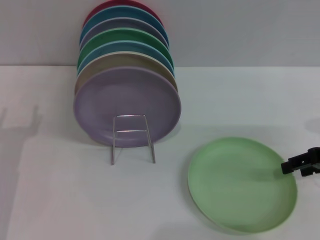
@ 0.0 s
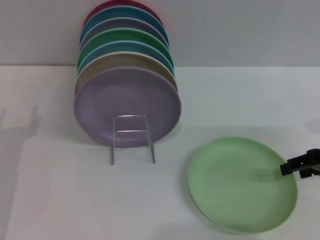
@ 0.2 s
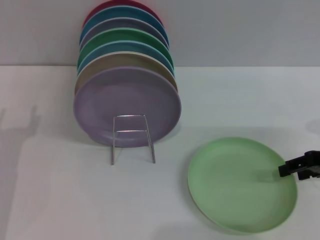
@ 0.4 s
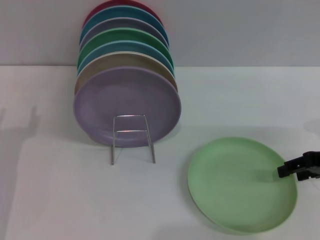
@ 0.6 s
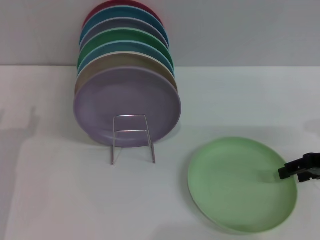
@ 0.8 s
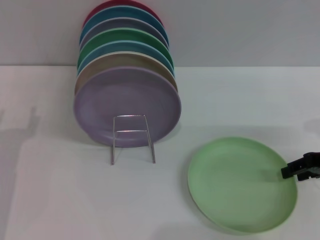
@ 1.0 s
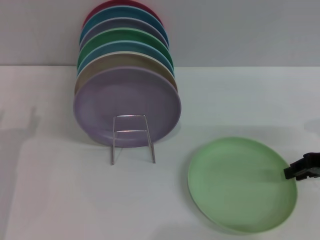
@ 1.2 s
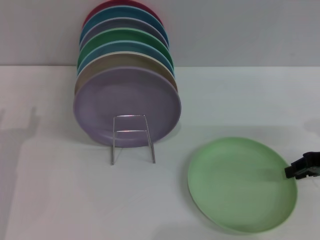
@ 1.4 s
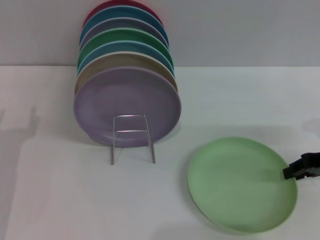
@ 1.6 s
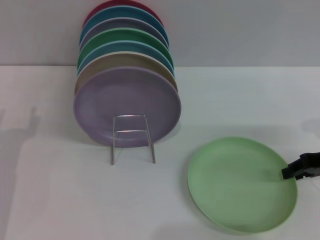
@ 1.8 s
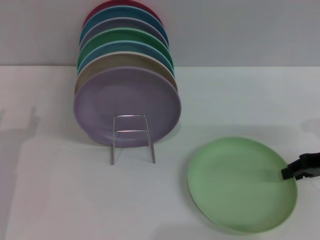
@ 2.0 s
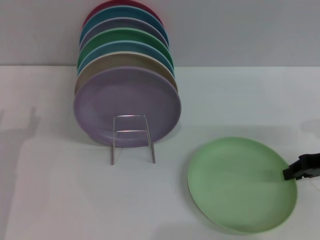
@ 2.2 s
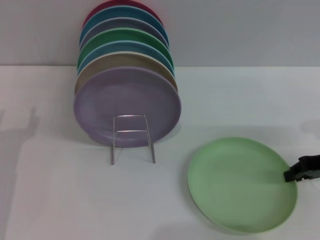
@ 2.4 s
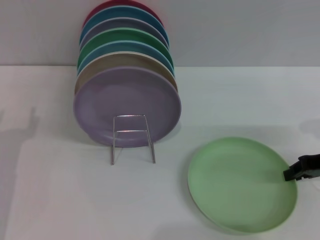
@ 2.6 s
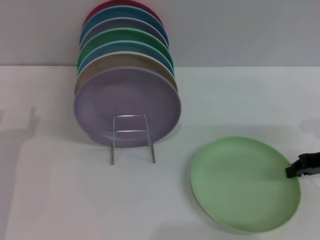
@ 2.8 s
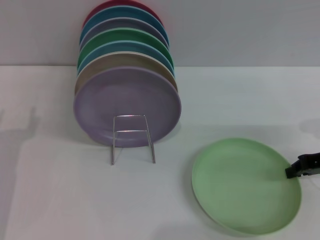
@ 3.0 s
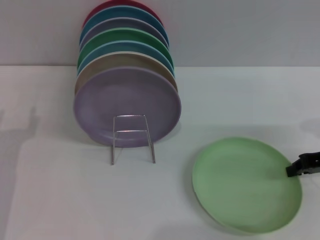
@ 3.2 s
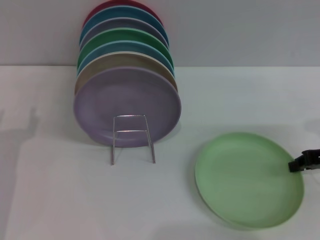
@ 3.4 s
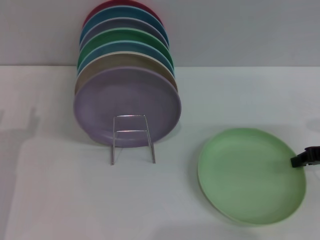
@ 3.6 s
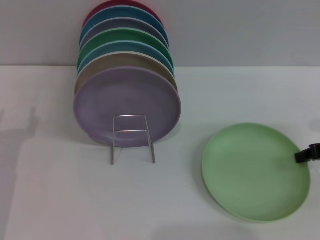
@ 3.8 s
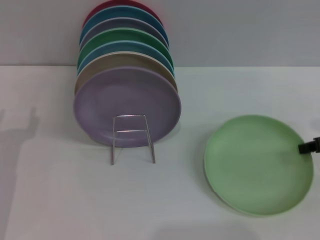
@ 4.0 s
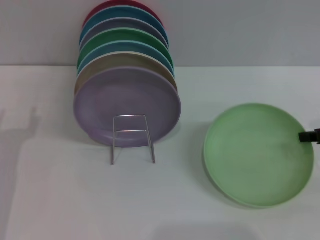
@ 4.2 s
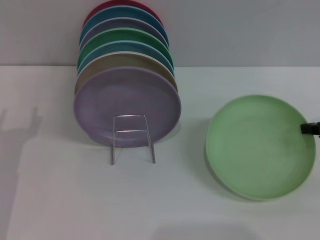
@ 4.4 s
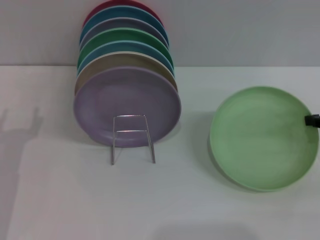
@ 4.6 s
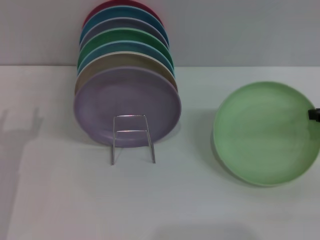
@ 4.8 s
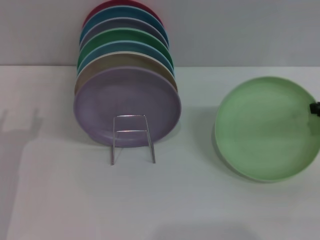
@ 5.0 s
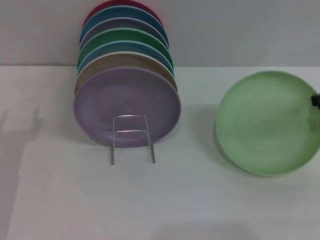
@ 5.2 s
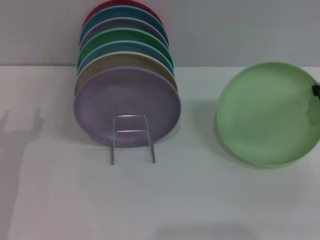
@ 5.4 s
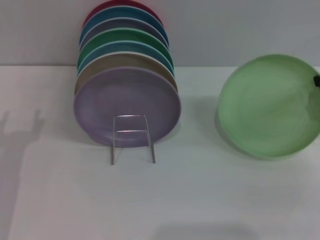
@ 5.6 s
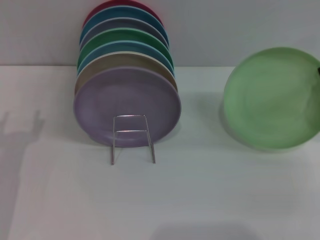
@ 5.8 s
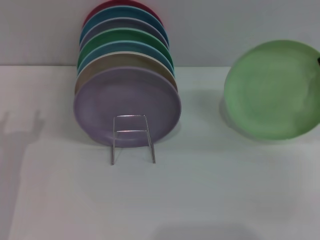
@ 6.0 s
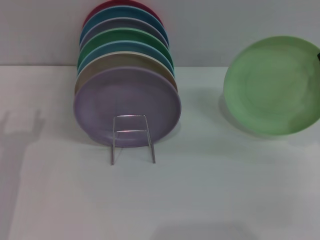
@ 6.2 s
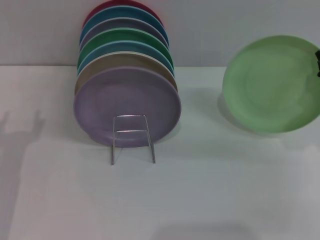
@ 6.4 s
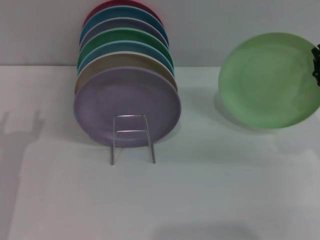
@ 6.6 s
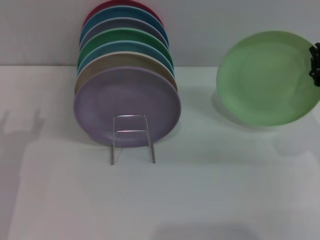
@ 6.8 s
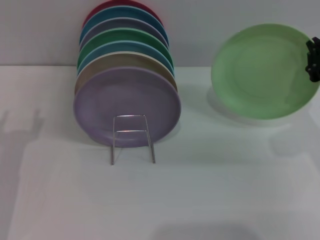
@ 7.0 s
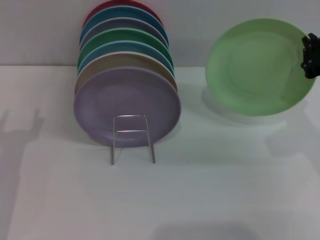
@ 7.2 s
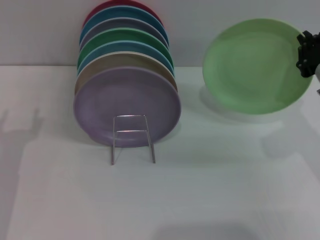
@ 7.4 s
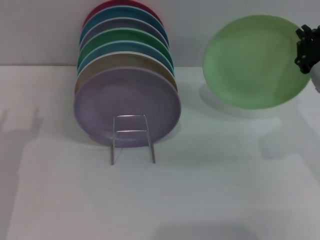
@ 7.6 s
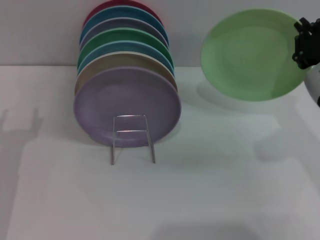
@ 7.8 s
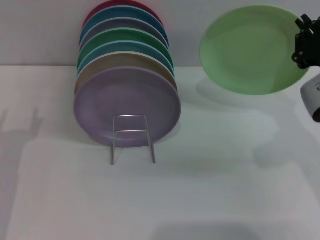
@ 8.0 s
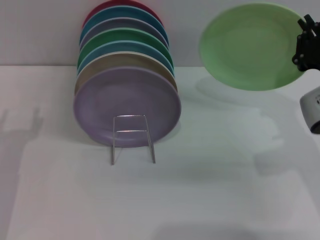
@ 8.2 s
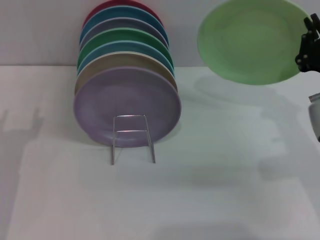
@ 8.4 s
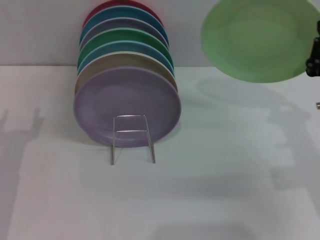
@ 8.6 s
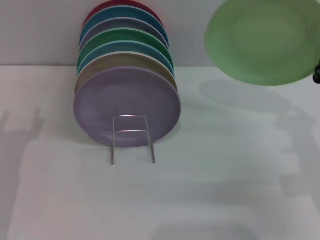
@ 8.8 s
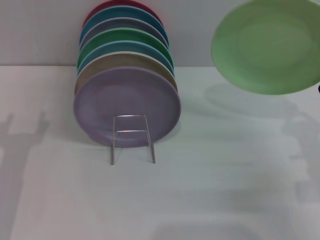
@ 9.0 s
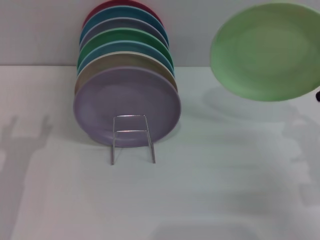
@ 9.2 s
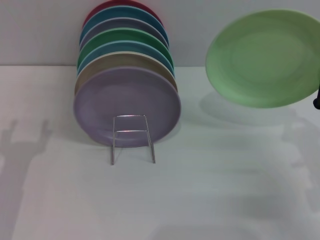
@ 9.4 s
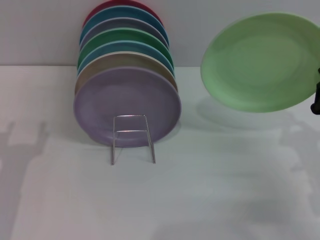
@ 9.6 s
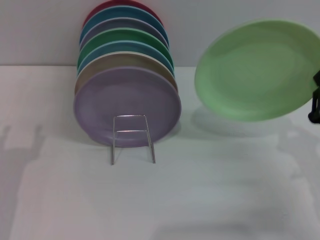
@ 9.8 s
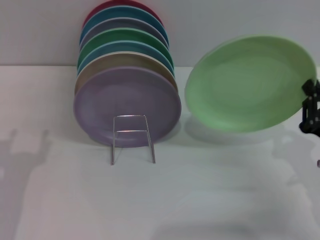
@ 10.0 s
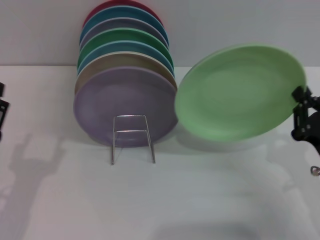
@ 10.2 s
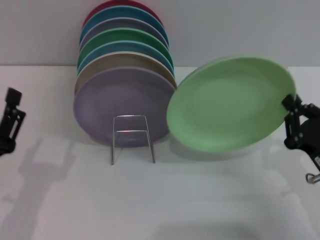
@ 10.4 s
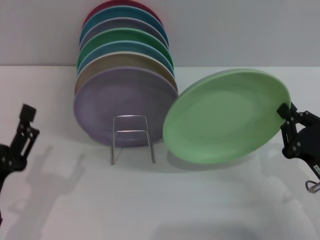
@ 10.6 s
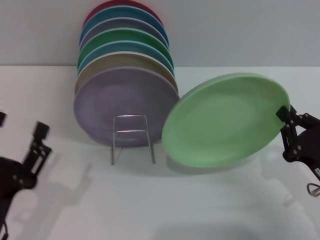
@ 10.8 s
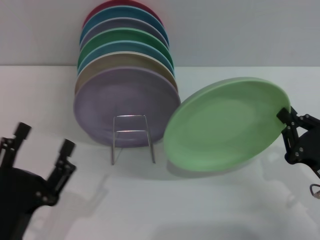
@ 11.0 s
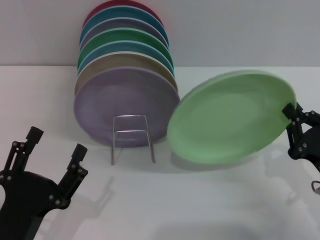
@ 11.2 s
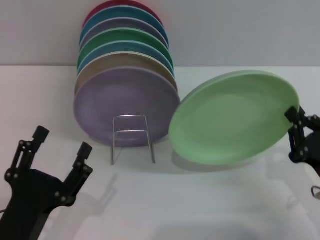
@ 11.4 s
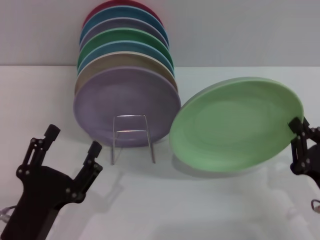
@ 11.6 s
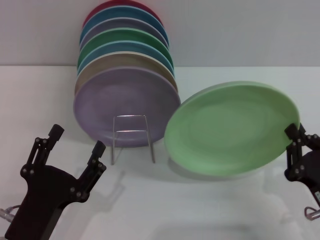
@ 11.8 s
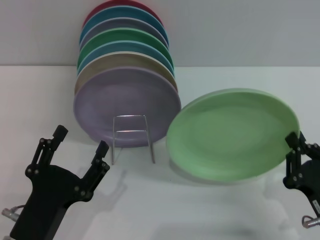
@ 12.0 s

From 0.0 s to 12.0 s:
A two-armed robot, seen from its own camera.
Task of the whole recording: Grip the plate with one hand, pass it to the other, then set it on the shelf.
Step, from 0.0 s to 4.2 s: Pick up the plate with the right gripper.
From 0.0 s to 1.6 s: The right gripper closes its fingers.
From 1.6 s to 3.0 s: The right gripper closes its fingers.
From 4.4 s to 6.0 s: The right gripper shifts by some 5 cm.
From 6.0 s to 7.6 s: The right gripper heads to the left, covering some 5 cm.
From 7.6 s to 9.0 s: The right gripper moves downward and backward, about 10 cm.
From 9.0 s to 10.4 s: The left gripper is displaced backward by roughly 5 cm; the right gripper ends up some 5 cm from where it was.
From 10.4 s to 12.0 s: The right gripper shifts about 5 cm backward. The left gripper moves to the right, roughly 5 cm.

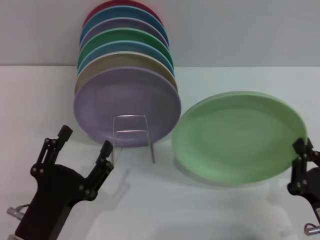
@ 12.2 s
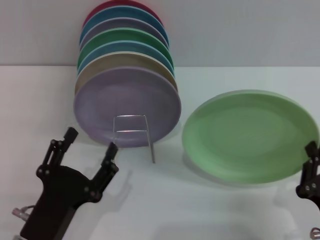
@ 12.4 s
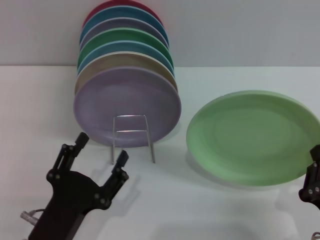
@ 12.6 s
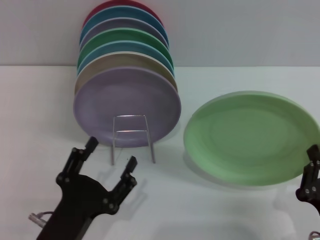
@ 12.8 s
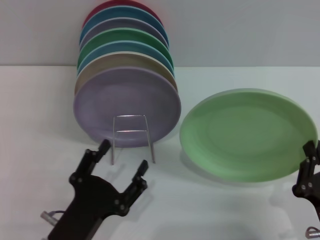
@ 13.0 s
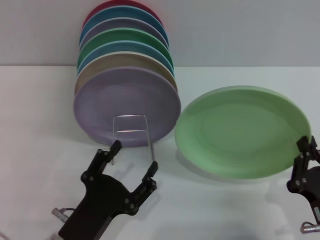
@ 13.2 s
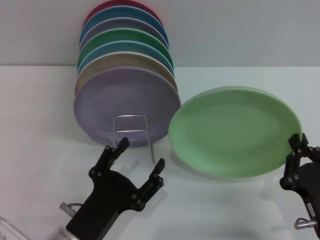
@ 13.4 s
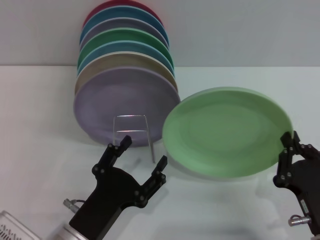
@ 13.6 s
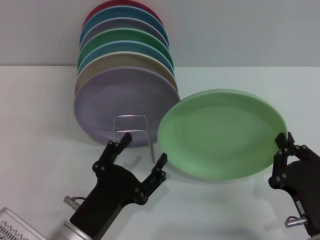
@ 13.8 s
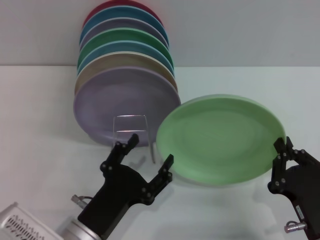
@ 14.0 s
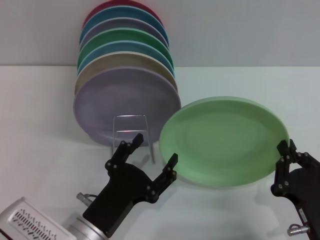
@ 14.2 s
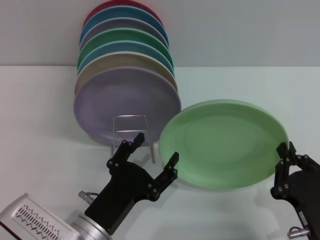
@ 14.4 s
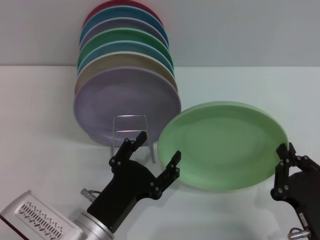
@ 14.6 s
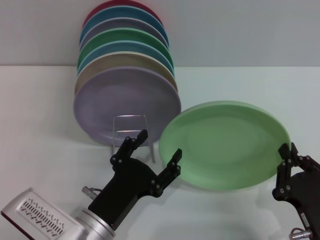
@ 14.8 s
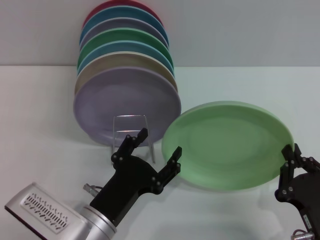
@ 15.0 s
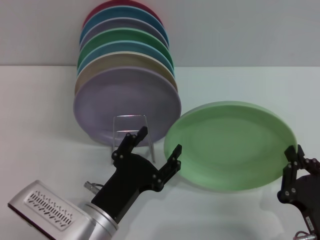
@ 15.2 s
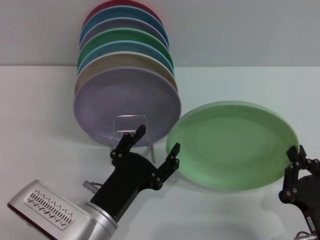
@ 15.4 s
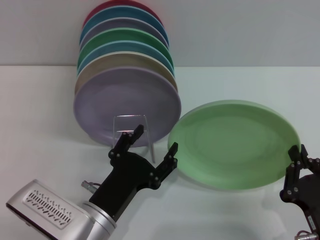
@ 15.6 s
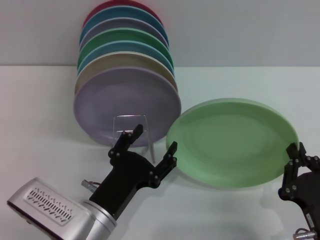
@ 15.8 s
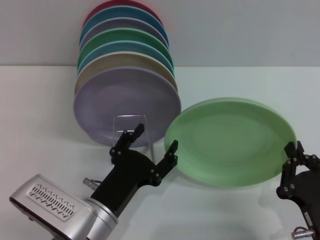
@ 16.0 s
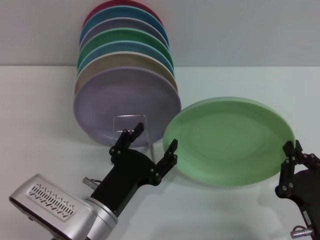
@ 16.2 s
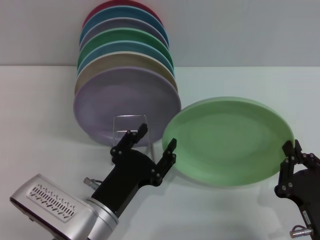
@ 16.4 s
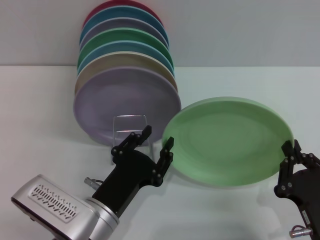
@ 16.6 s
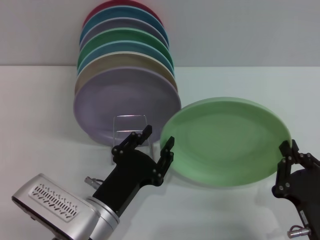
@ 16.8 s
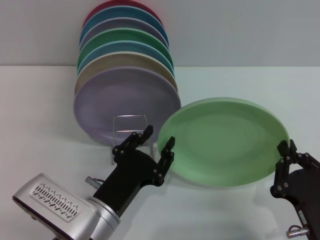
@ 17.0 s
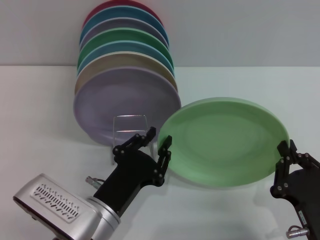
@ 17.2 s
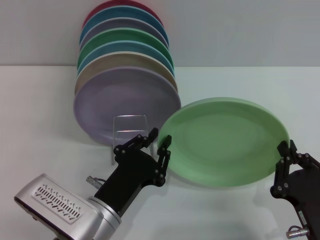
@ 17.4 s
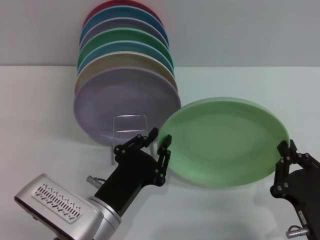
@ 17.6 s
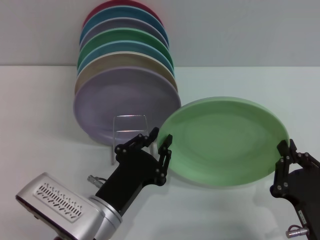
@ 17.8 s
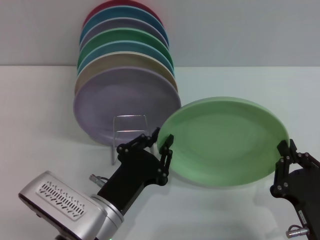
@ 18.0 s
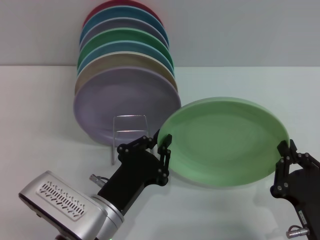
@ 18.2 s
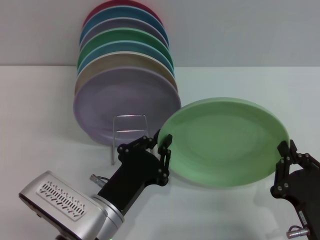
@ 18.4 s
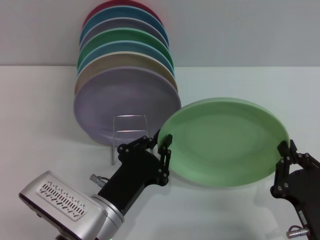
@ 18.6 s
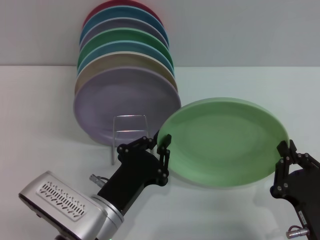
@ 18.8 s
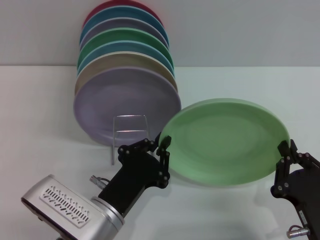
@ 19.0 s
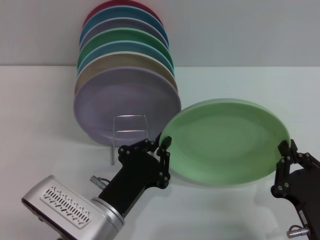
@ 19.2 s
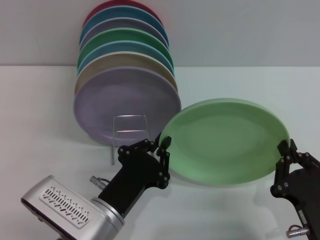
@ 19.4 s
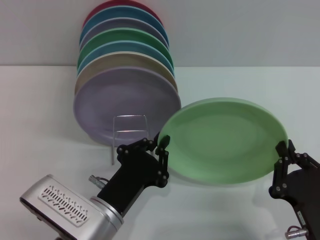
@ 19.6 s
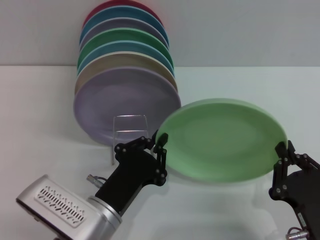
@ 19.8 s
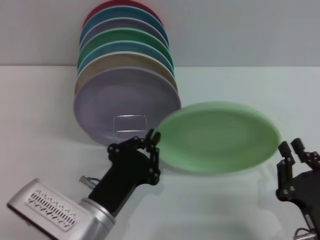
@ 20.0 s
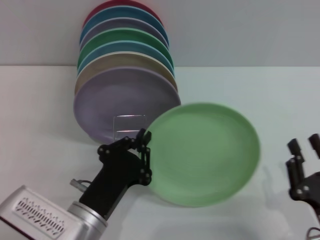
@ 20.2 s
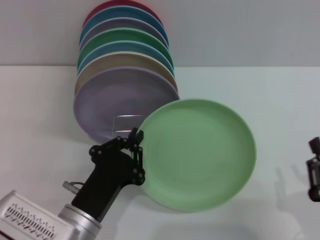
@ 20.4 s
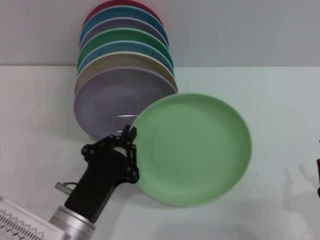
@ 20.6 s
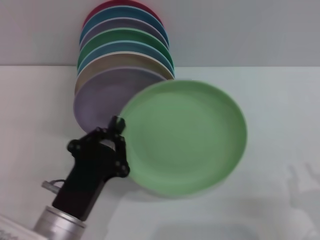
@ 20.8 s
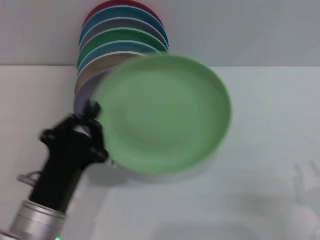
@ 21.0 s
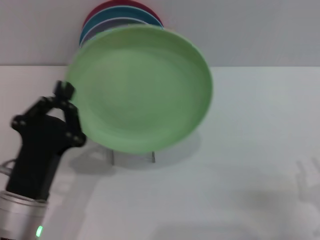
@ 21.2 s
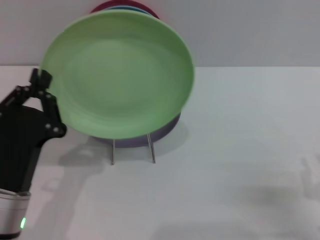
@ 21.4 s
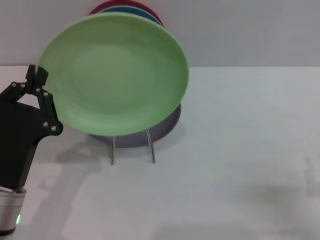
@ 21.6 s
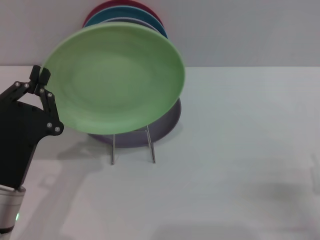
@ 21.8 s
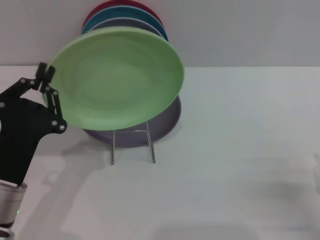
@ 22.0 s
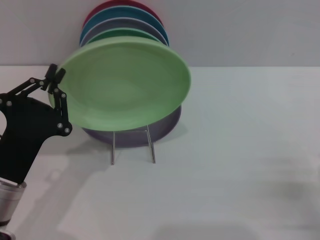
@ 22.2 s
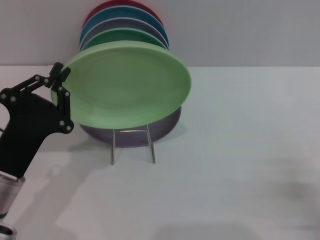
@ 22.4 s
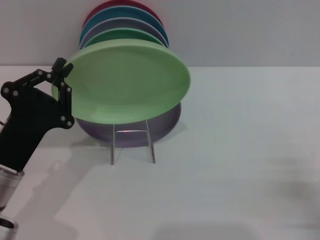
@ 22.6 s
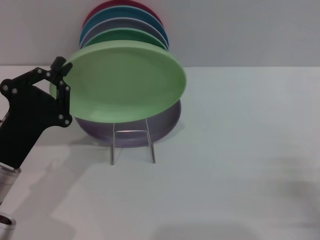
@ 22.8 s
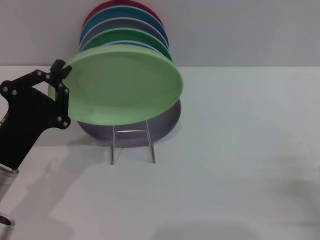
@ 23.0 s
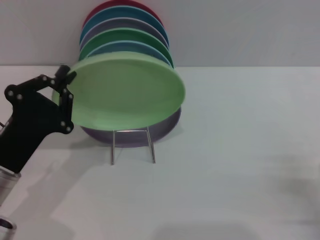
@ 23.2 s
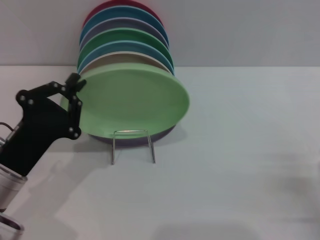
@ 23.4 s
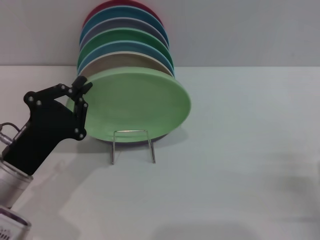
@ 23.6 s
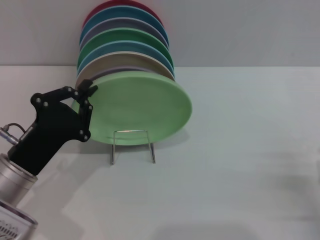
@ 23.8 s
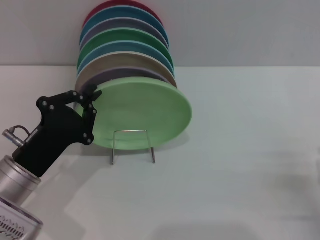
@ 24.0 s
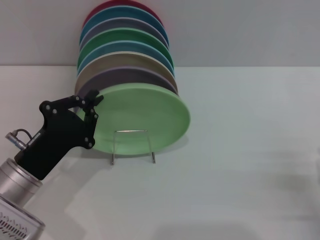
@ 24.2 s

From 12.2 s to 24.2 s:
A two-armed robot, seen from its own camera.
Task of the whole recording: Grip the plate with one hand, pass it to the other, then set it on the shelf.
Step, from 12.2 s to 20.6 s: Pass the plate from the right gripper to the left gripper.
From 12.2 s to 13.8 s: The grippers make only small movements.
From 13.8 s to 15.2 s: The grippers make only small movements.
From 15.2 s to 16.6 s: Both grippers stay about where they are.
From 16.6 s to 18.2 s: The left gripper closes its fingers.
From 18.2 s to 19.8 s: The two grippers keep their place.
From 19.8 s to 21.2 s: The right gripper shifts approximately 10 cm to the right, and opens, while the left gripper goes some 5 cm to the left.
From 21.2 s to 22.6 s: The left gripper changes place by approximately 5 cm.
